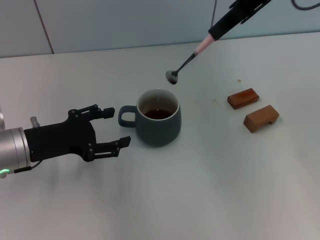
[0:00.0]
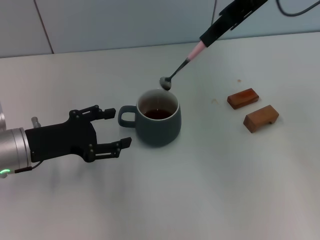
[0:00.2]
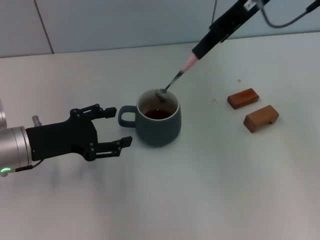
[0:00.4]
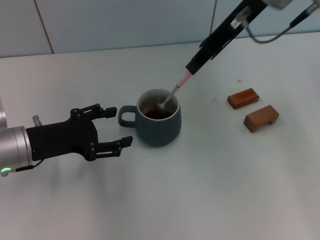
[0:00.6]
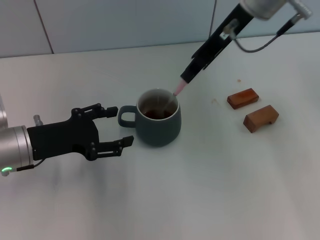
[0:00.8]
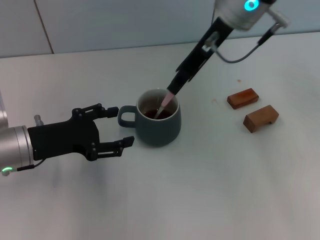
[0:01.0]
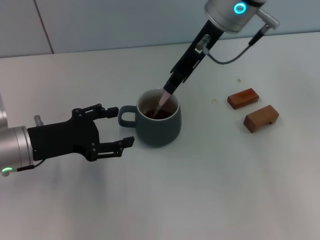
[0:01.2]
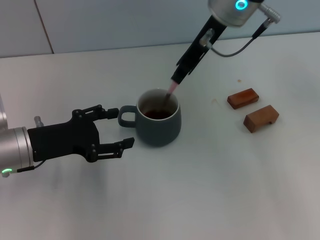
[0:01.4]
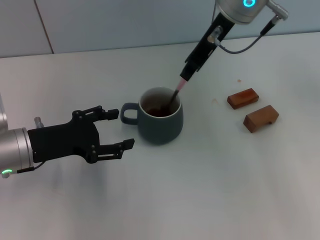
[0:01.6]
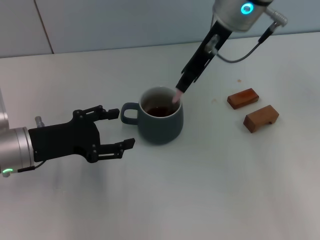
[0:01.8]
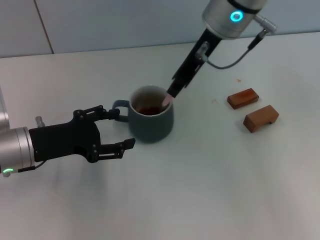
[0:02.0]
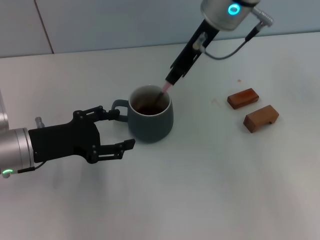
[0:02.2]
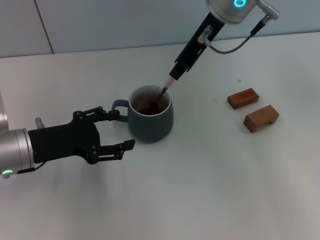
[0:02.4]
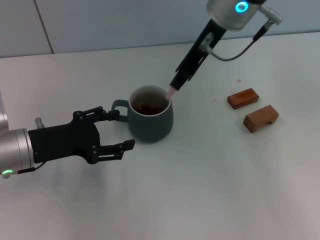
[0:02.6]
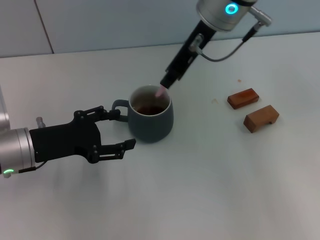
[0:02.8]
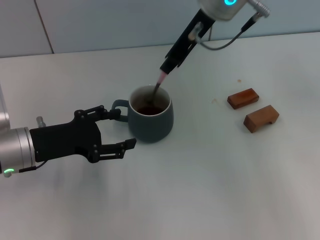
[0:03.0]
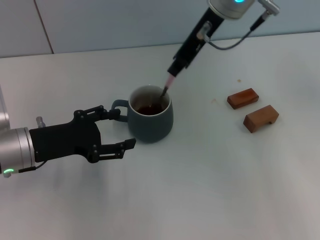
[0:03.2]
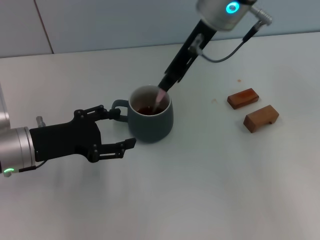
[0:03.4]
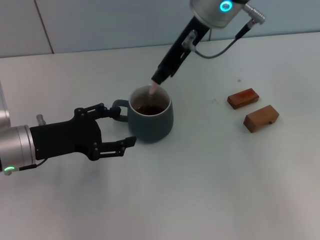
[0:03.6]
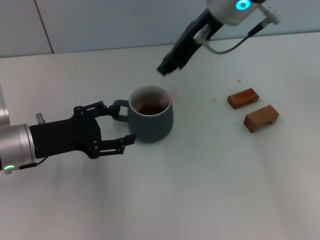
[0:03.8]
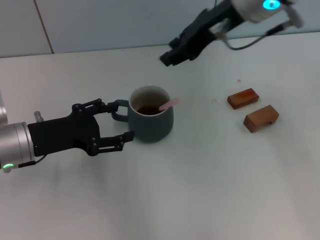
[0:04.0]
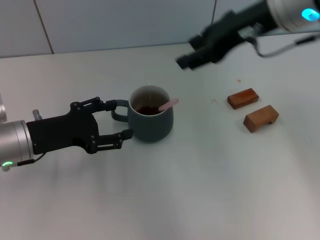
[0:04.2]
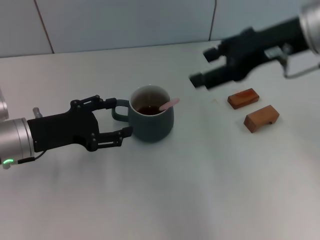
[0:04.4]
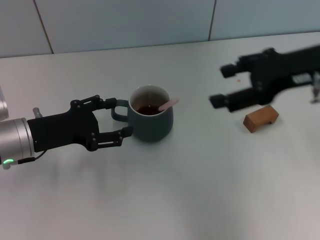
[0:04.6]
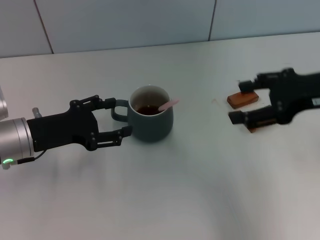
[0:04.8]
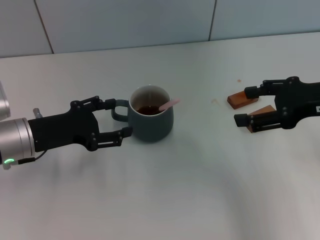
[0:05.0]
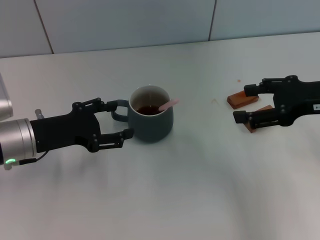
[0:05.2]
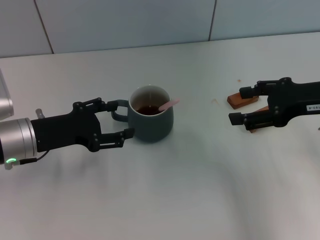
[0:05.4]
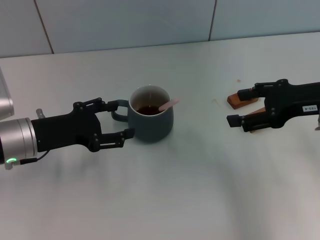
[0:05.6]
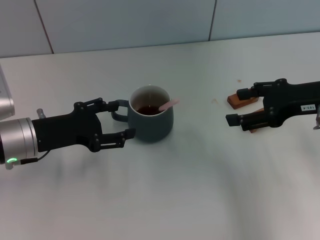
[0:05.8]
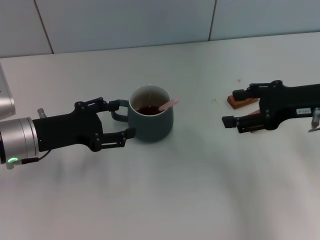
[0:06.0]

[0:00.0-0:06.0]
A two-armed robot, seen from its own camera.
Task of the whole recording: Move the grey cup to the center, lift the pink spoon, stir it three times in the cup, and put the spoon into the cup.
Step, 0:00.0 to 0:03.6: Stir the coffee in the cup with the right gripper.
0:00.0 to 0:01.6: The right gripper travels downward and to the left by about 10 cm.
0:01.6 to 0:03.0: The grippers move only a little.
0:03.0 to 0:04.4: The right gripper shifts about 15 cm to the right and backward, and opens its fingers.
0:04.4 to 0:06.0: The right gripper is displaced downward and to the right by roughly 15 cm.
